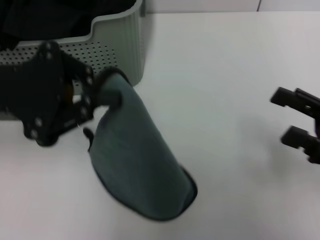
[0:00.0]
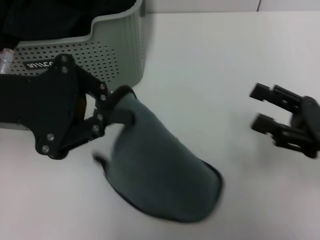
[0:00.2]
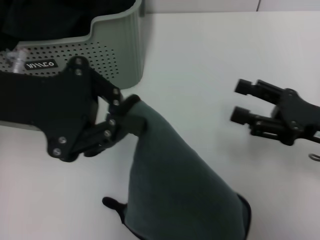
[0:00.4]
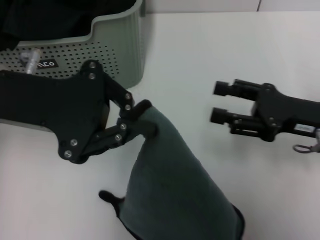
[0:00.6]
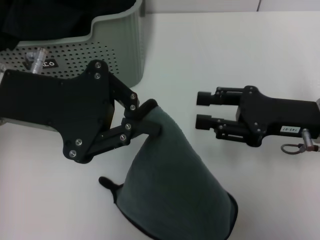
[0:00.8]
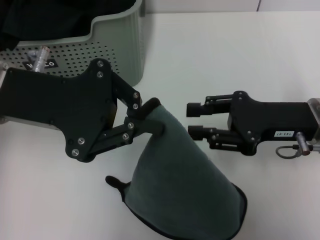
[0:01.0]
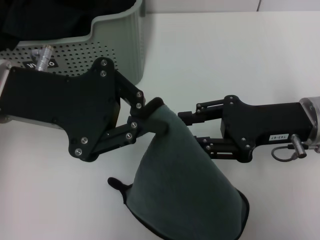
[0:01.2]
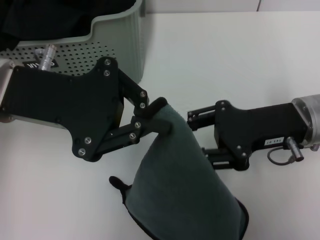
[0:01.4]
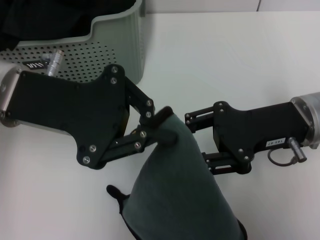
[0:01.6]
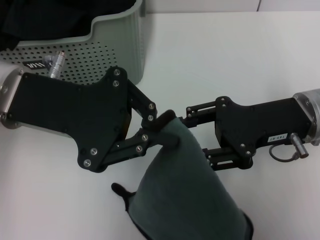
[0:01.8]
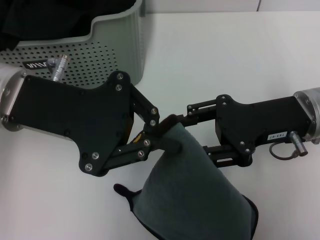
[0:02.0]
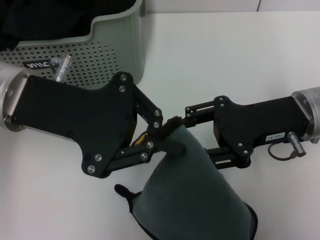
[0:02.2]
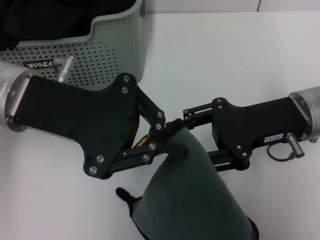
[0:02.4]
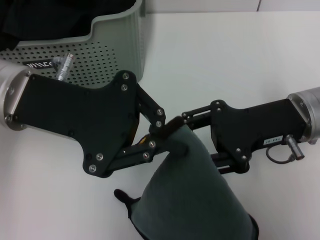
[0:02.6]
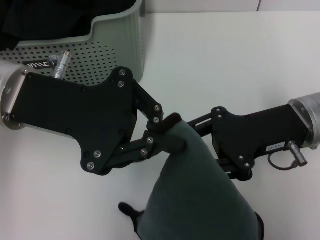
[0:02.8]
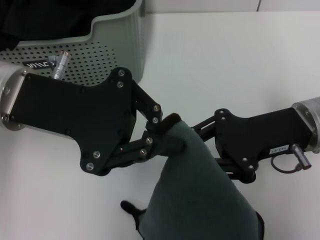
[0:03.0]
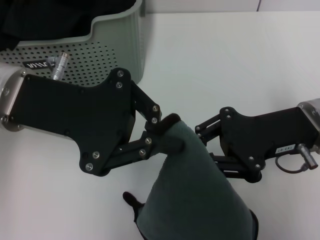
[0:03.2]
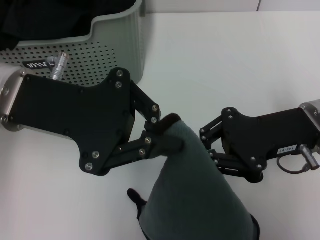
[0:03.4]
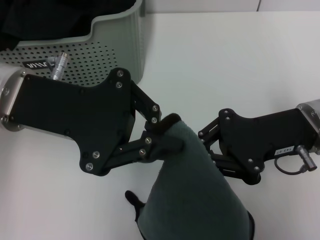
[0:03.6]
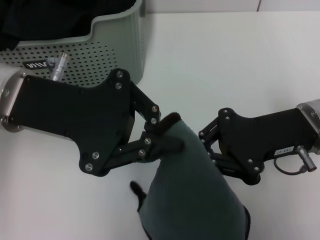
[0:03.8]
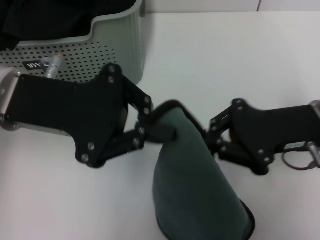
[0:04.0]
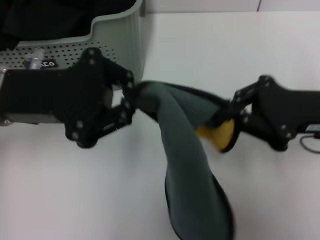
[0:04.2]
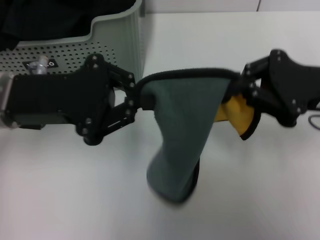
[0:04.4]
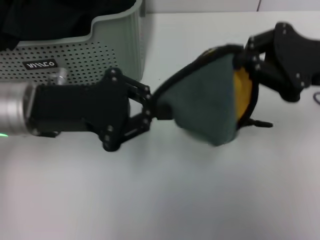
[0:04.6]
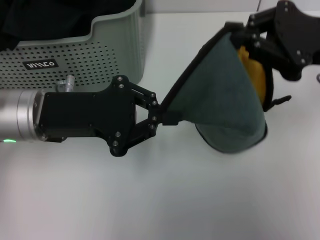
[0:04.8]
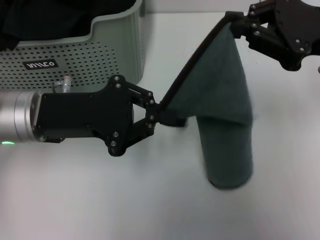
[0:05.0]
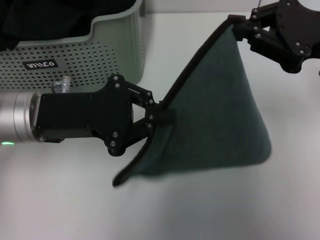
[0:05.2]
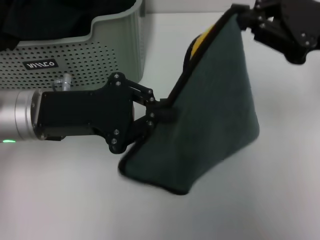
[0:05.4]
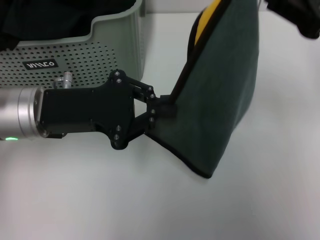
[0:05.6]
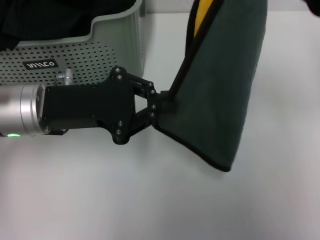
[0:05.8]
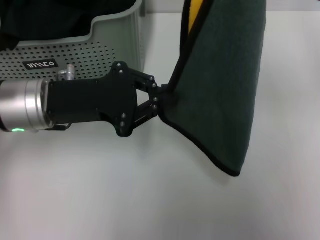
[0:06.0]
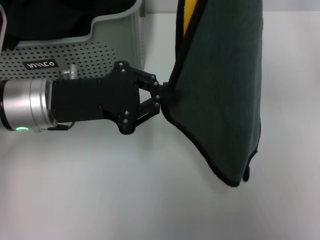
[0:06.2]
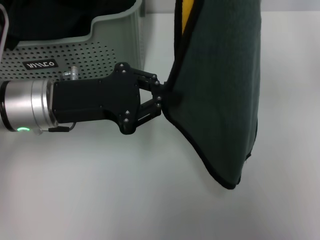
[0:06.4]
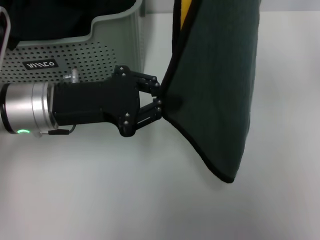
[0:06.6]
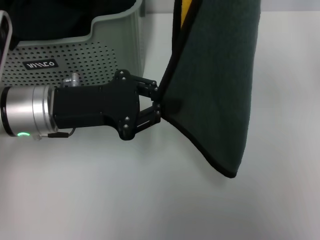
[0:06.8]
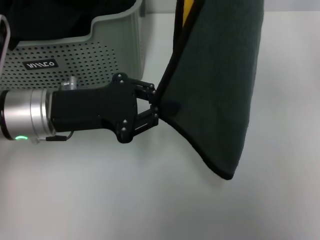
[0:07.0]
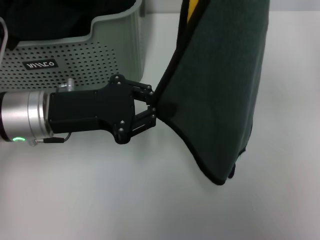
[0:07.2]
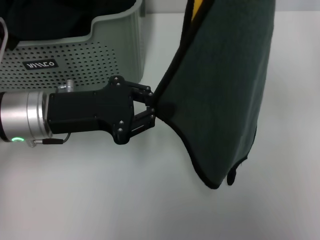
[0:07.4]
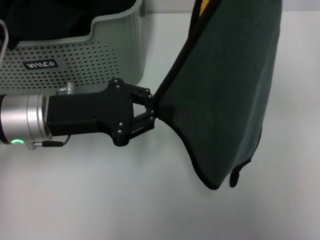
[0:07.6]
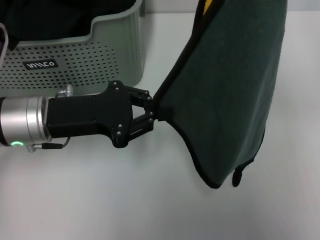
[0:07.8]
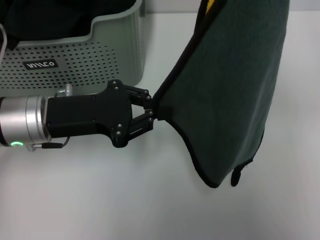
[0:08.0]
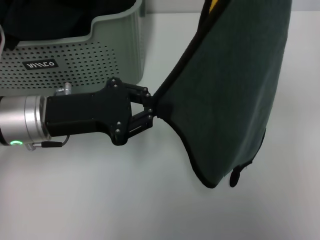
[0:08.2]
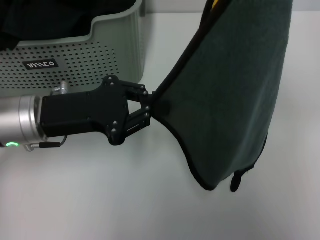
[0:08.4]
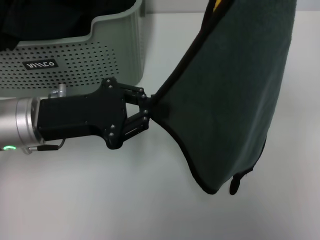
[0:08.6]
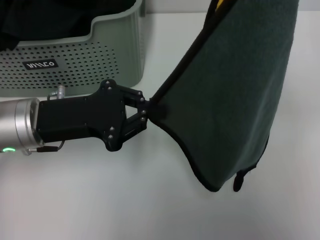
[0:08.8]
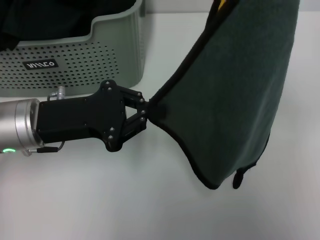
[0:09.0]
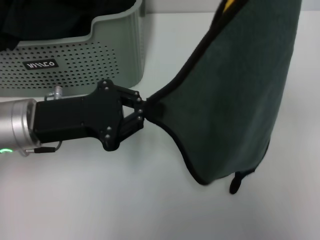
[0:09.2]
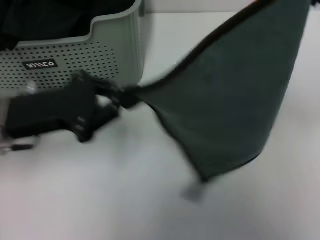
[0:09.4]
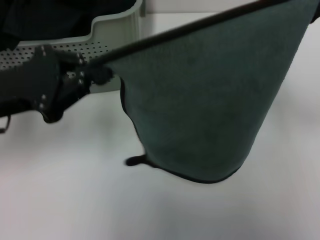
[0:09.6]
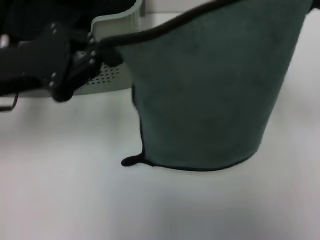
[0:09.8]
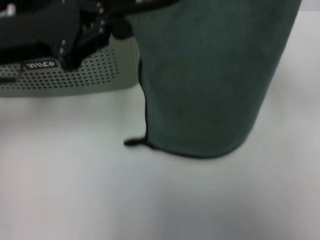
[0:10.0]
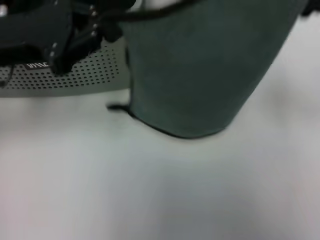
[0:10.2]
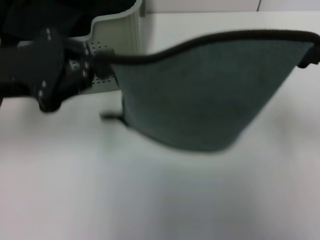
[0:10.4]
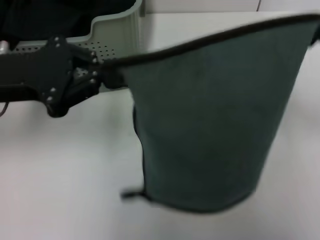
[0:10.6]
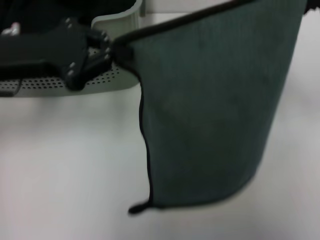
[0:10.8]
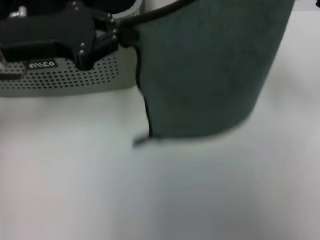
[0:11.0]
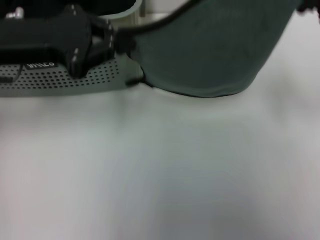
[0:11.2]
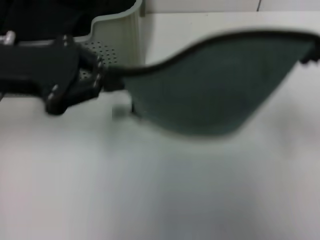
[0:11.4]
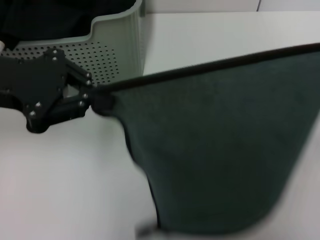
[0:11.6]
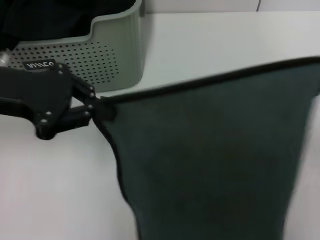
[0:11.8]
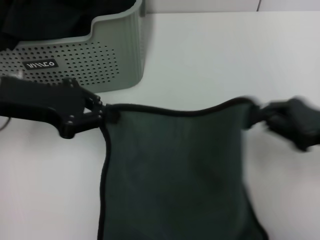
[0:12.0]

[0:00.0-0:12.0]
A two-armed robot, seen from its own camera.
Task of the whole recording: pick up the towel from the storage box and lay it flat on the table.
Step, 0:00.0 to 0:03.6: Spread the towel flat with the left gripper.
0:00.0 to 0:01.6: The left gripper travels to the right by approximately 5 cm. The right gripper moves to the left and forward, roughly 15 cm, and closes up.
0:01.6 to 0:03.0: The two grippers keep their place.
0:03.0 to 0:04.4: The right gripper travels to the right by approximately 5 cm, and closes up.
0:04.4 to 0:06.0: The right gripper moves upward, roughly 10 cm.
0:06.0 to 0:09.0: The grippers move only a little.
0:09.0 to 0:10.4: The left gripper travels upward by roughly 5 cm. The right gripper travels downward by about 10 cm.
0:10.4 to 0:12.0: The right gripper goes approximately 10 cm downward.

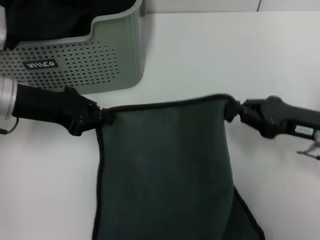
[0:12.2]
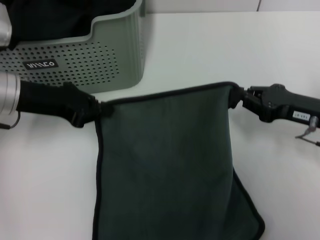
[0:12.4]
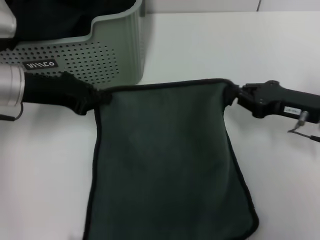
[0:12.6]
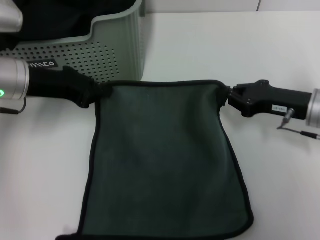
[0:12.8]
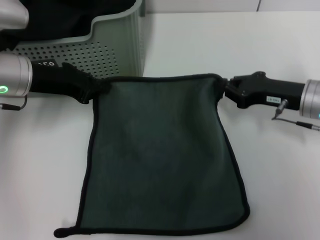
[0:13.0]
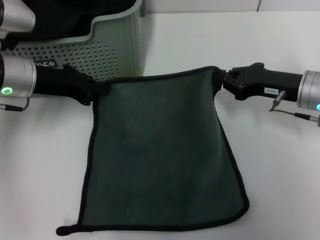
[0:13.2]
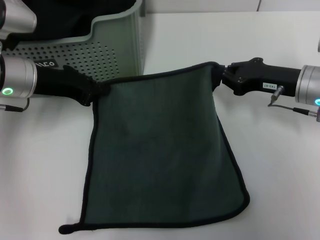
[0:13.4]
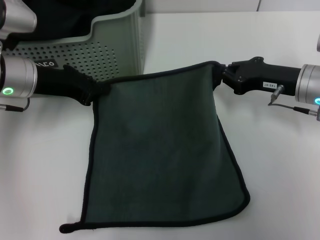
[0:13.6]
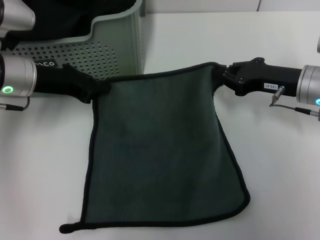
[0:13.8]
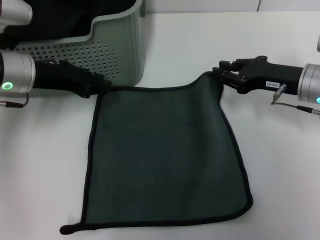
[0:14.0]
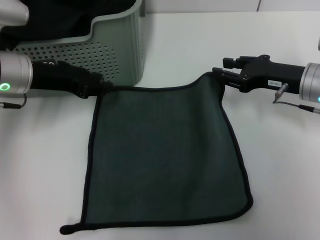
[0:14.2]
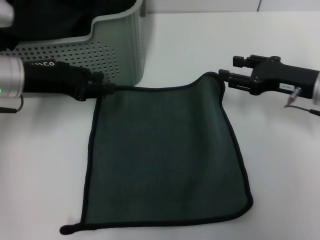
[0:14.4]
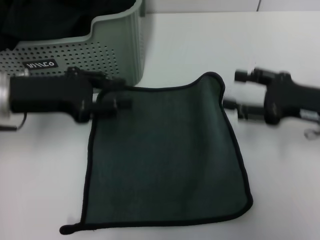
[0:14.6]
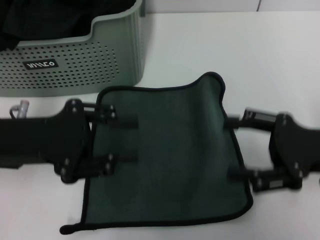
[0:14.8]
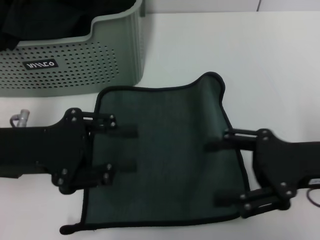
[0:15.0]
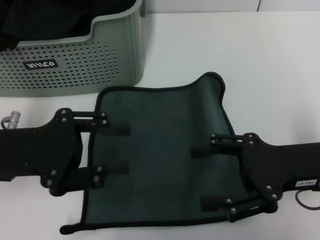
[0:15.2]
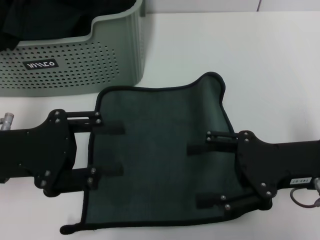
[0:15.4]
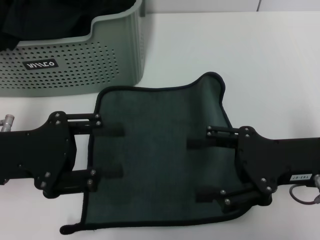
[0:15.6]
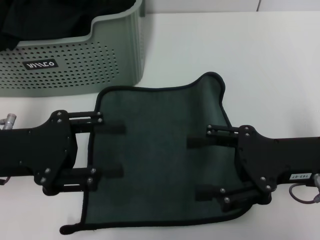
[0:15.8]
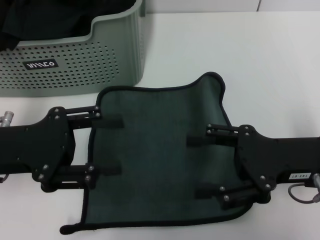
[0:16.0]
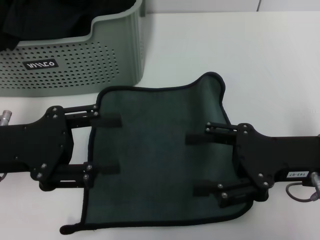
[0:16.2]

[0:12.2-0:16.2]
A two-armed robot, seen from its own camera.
Task of the whole recording: pick up the towel from the storage box and lay it flat on the table.
Step, 0:12.2 to 0:14.2: Spread the towel flat with the right gripper.
0:12.2 to 0:13.6: The right gripper is displaced forward by roughly 10 cm.
0:13.6 to 0:14.8: Both grippers travel together backward, roughly 10 cm. The right gripper opens its fingers; the left gripper opens its fingers.
0:14.8 to 0:16.2: The grippers stay close to where they were, moving slightly.
